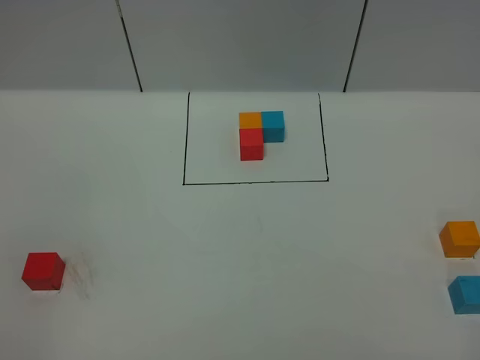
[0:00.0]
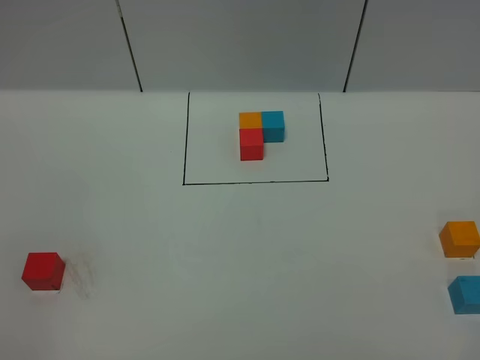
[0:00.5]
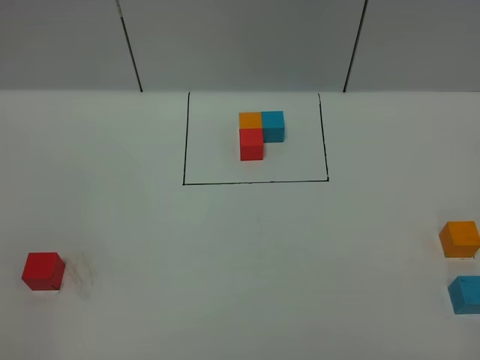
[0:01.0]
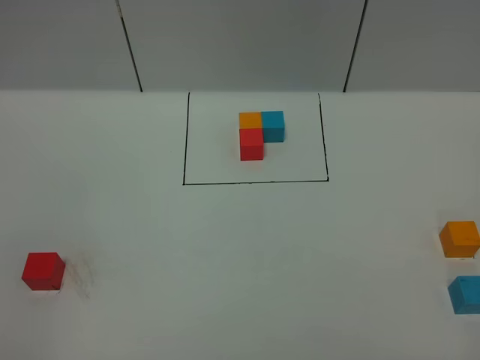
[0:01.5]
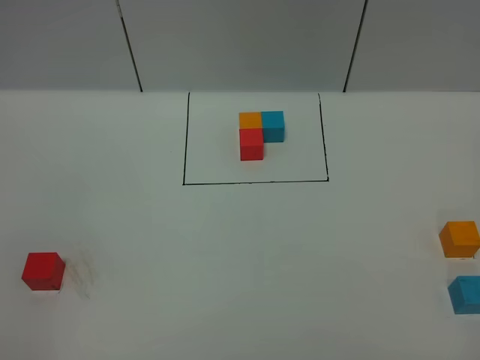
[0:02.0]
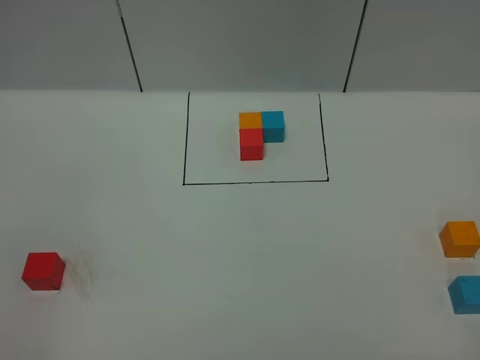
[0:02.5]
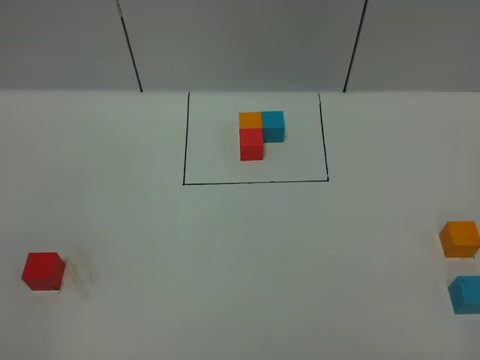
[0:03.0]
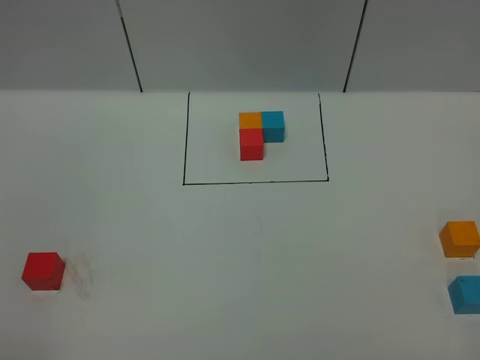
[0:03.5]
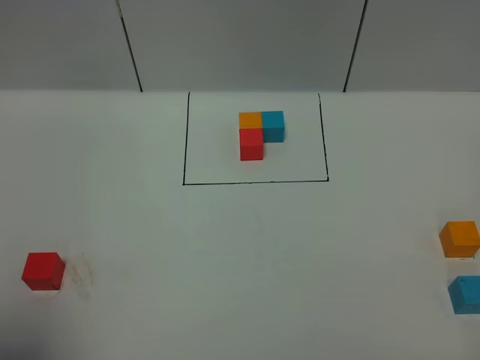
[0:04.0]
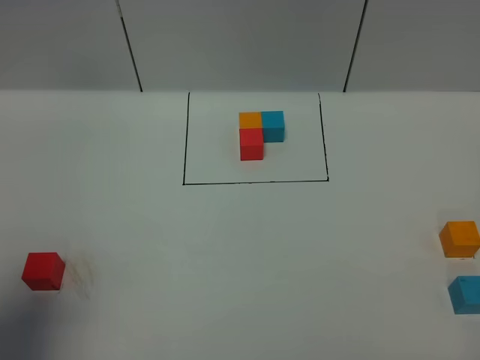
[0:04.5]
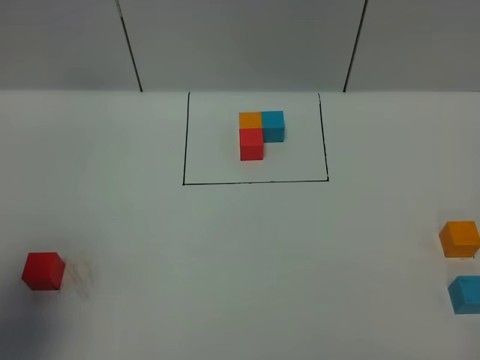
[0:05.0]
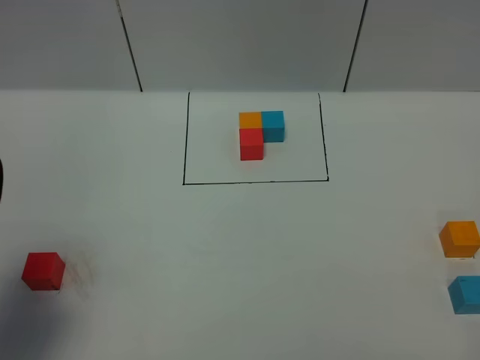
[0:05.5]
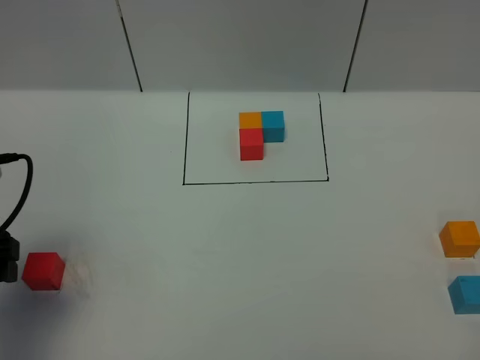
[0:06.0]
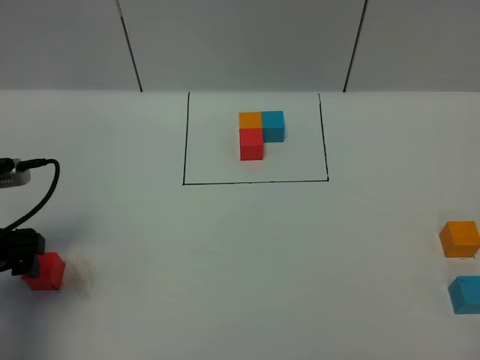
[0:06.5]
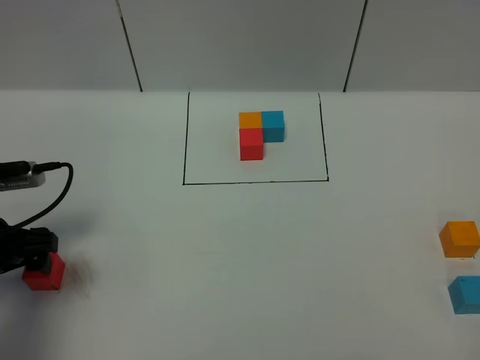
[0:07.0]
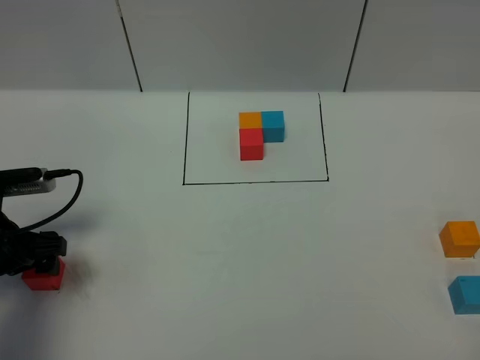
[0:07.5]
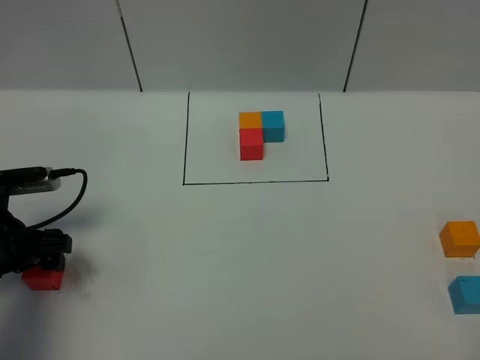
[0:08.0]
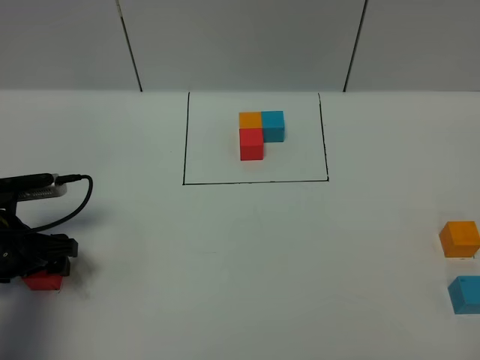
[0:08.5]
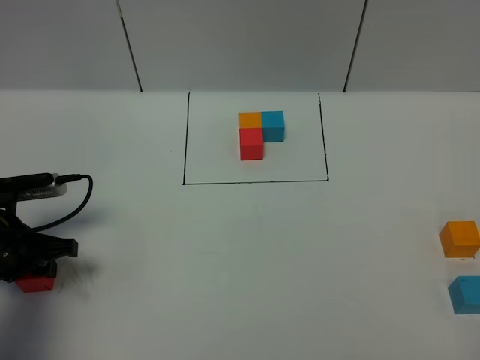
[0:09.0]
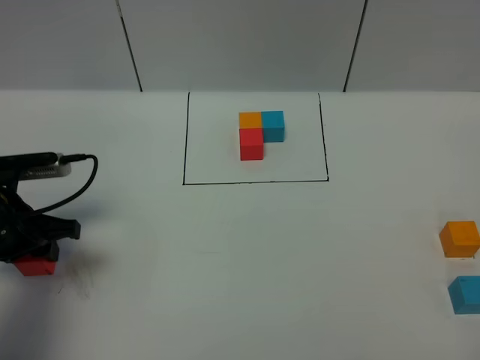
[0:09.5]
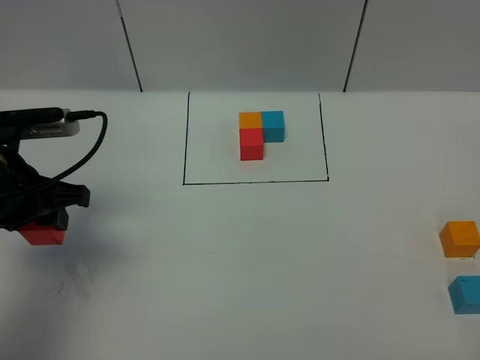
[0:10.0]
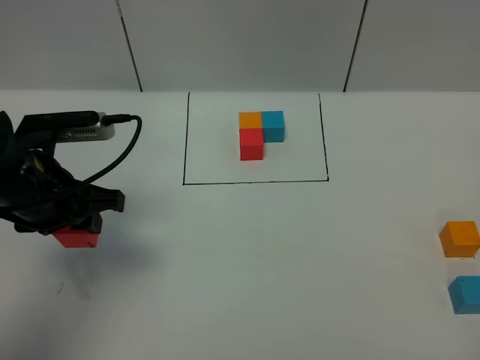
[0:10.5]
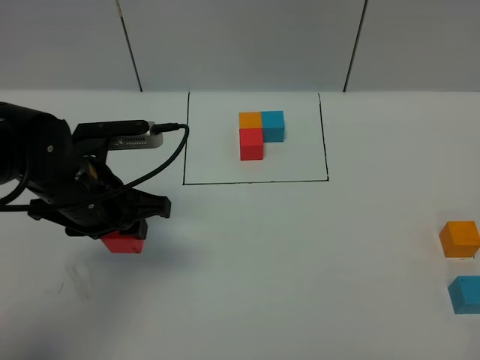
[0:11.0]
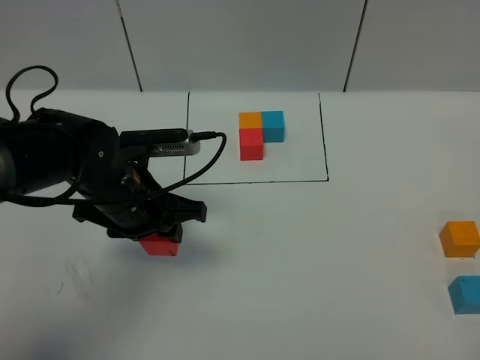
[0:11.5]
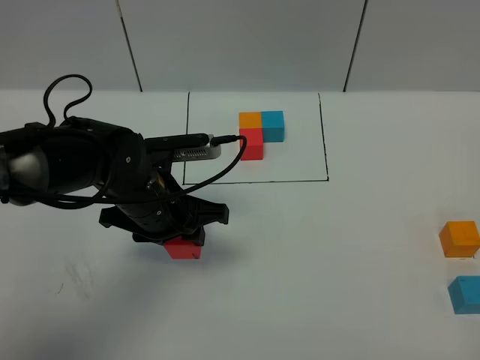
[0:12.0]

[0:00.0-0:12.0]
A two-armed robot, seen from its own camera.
Task of the whole recording: According to the building block template in front, assemble the scattered blocks together.
0.0 to 2.0 s: Neither gripper changes place.
2.0 to 4.0 s: The left gripper heads upward and forward, covering roughly 15 cm, and opens.
4.0 to 6.0 s: The left gripper is displaced downward and forward by roughly 20 cm.
6.0 to 8.0 s: The left gripper goes about 10 cm downward and forward.
8.0 to 10.0 s: The left gripper moves upward, about 10 cm, and closes.
10.0 to 12.0 s: The left gripper shifts some 15 cm to the right.

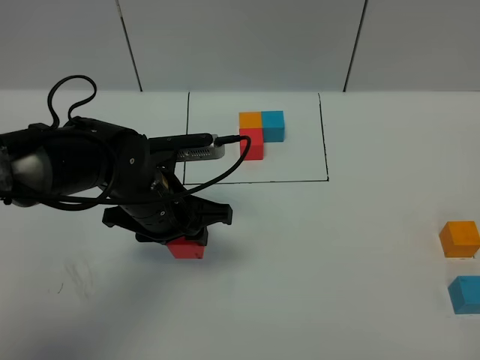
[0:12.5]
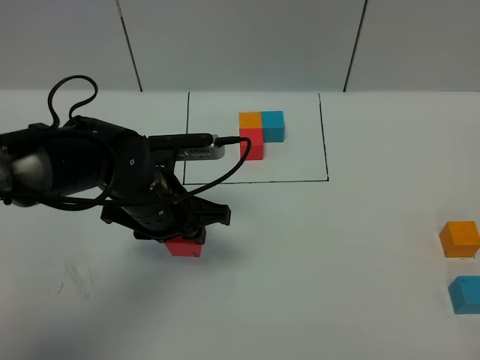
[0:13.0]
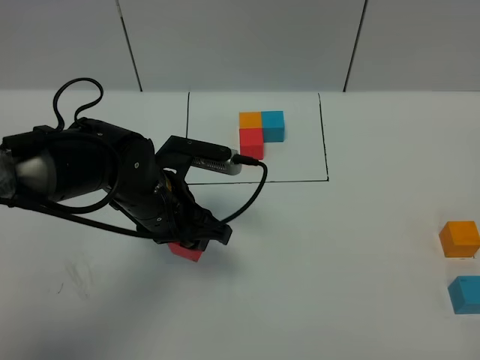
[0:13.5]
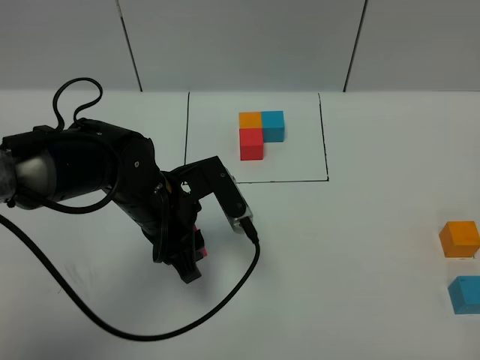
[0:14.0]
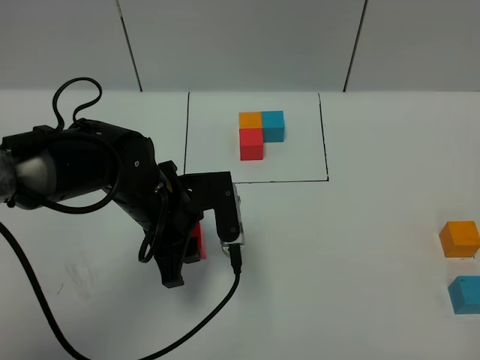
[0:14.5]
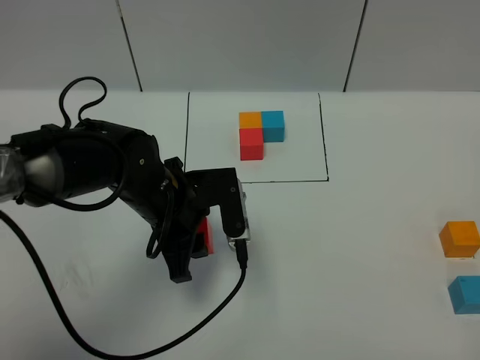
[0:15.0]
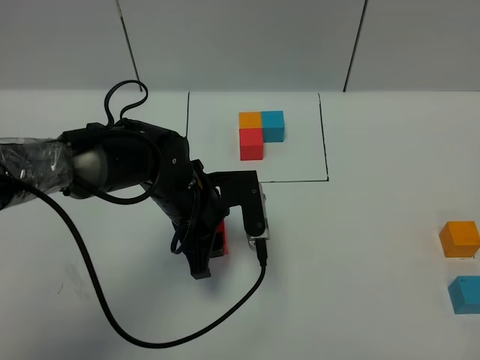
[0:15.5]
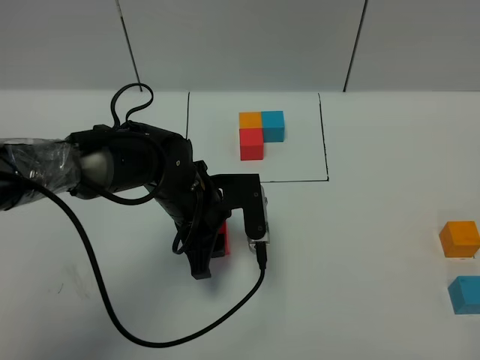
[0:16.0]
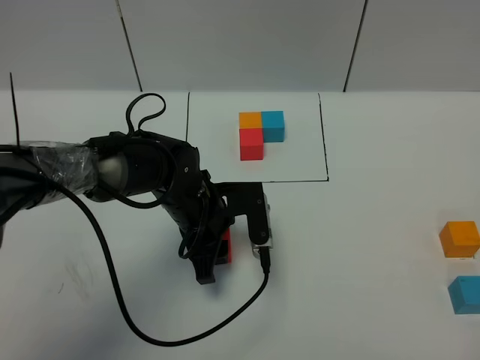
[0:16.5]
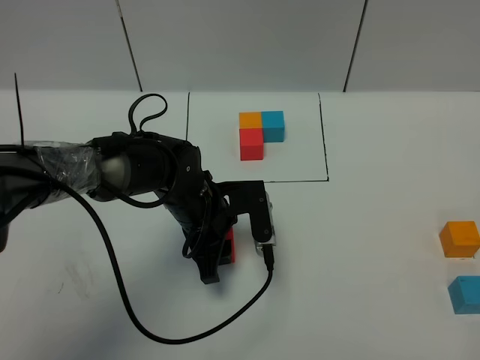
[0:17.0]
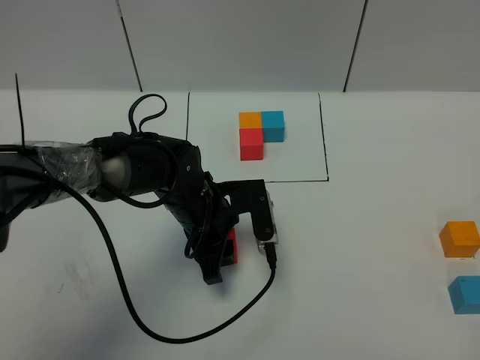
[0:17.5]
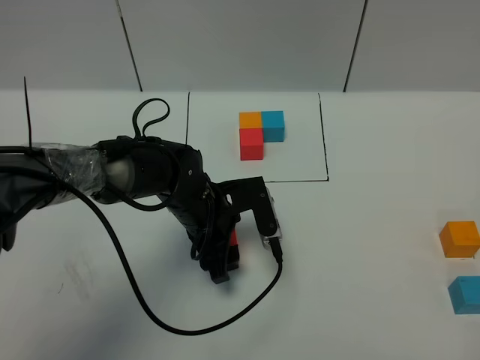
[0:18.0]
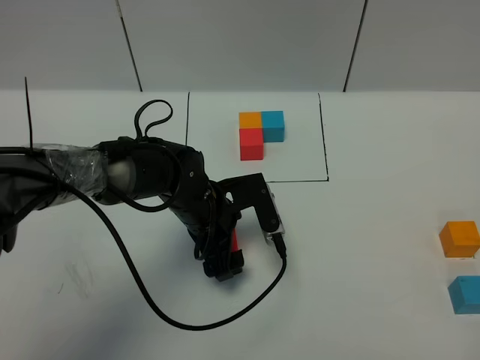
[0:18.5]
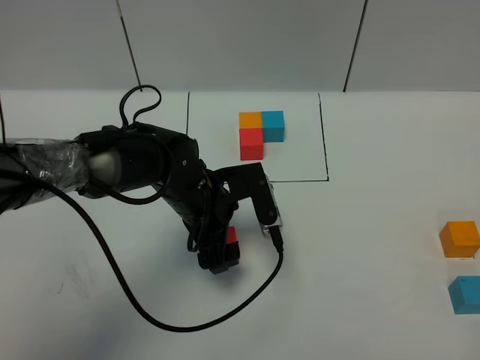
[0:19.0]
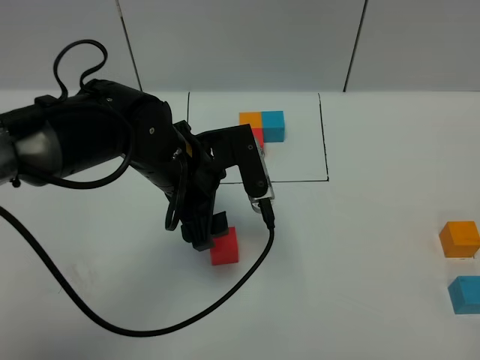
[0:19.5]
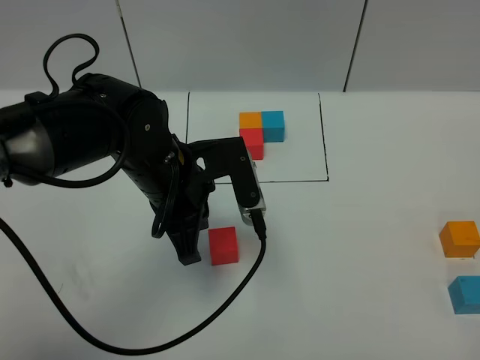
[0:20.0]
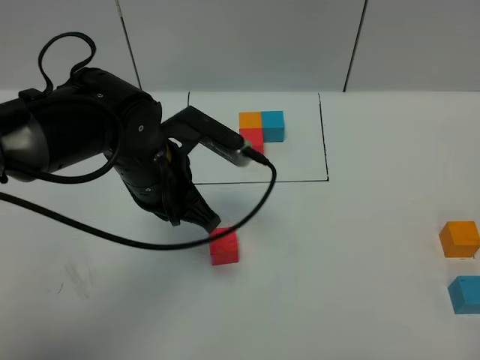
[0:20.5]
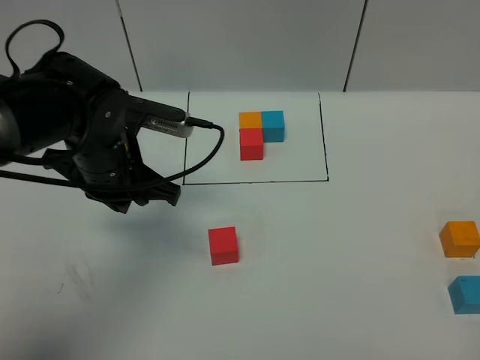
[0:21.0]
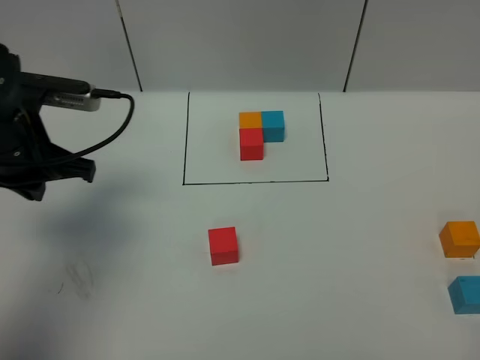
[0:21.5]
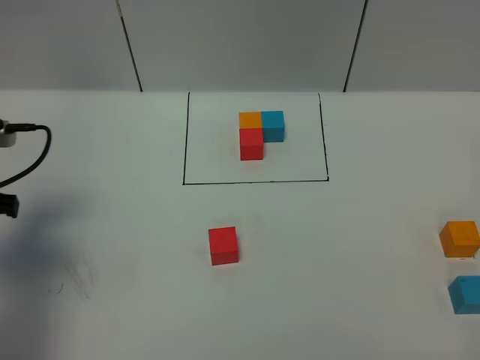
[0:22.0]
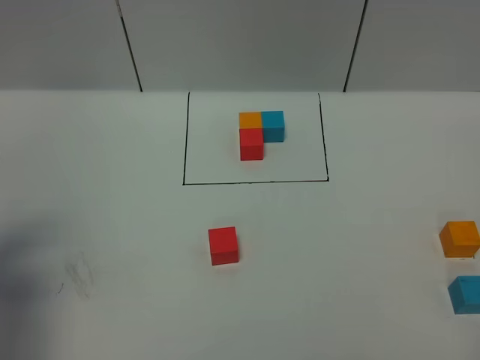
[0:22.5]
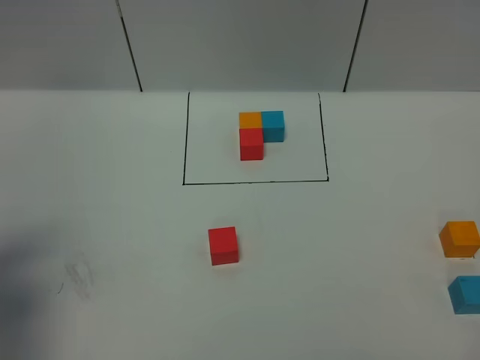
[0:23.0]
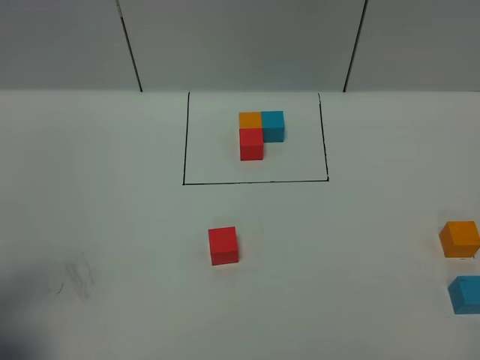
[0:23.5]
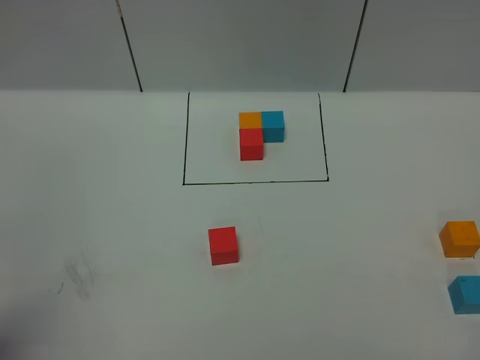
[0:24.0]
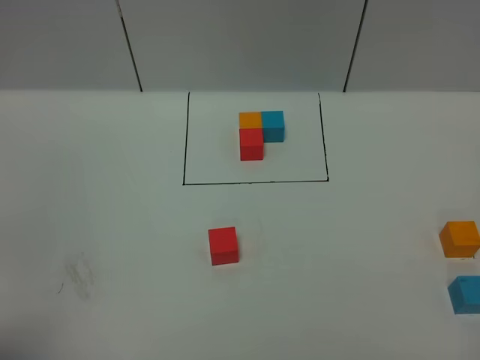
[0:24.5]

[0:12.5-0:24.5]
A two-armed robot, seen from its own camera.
Task of the whole recording: According to the building block template in front, assemble the scattered blocks together.
Step, 12.5 to 19.5 s: Put the red cube in the center of the table.
14.5 to 16.5 s: The left gripper heads downward, covering approximately 5 cm.
16.5 to 18.5 s: The left gripper opens its fingers.
18.5 to 20.5 s: The left gripper goes about 10 cm upward, and closes its fingers.
20.5 to 22.5 s: The left gripper heads to the left, covering about 25 cm.
22.5 to 24.5 s: The left gripper goes approximately 15 cm backward.

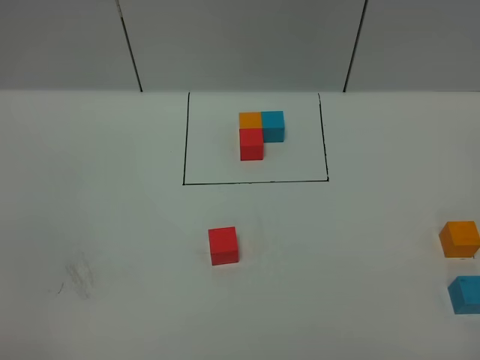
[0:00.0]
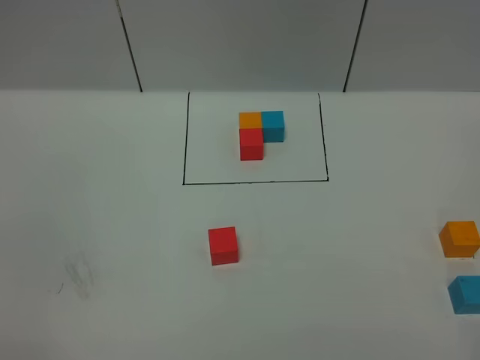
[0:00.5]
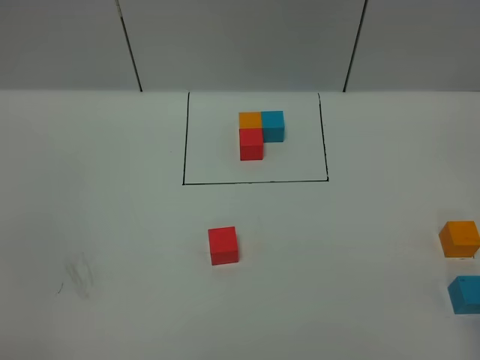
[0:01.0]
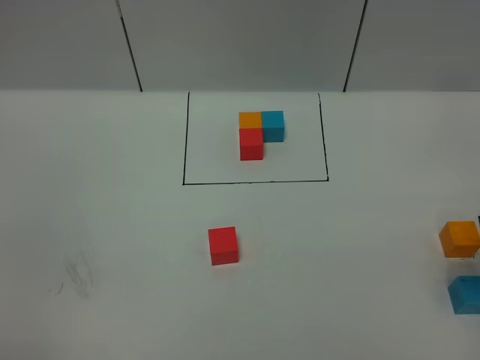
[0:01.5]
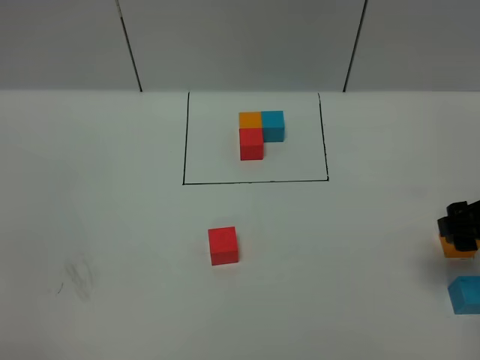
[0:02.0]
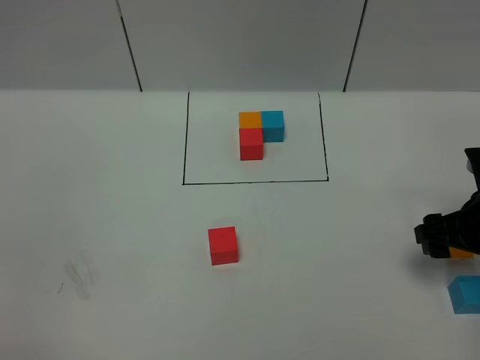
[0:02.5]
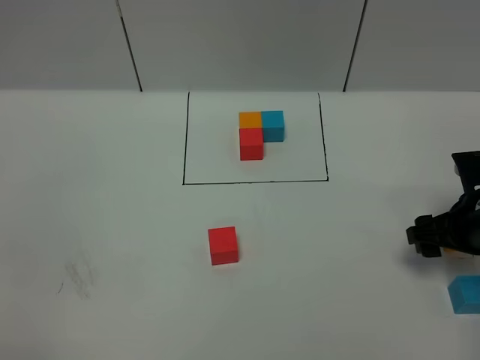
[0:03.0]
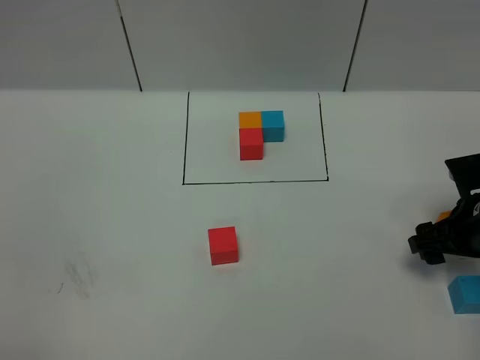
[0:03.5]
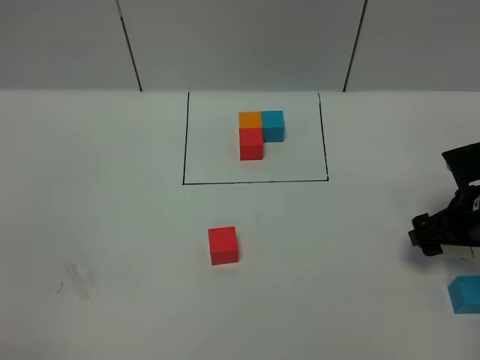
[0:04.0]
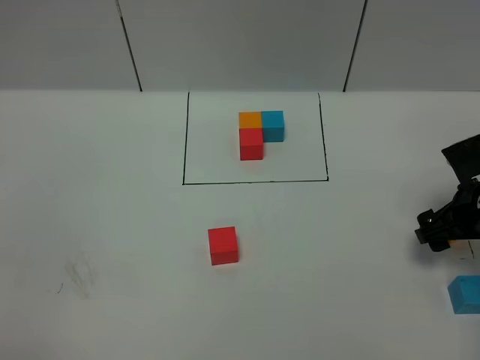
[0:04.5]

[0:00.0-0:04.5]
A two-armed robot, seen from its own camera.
Task of the whole recording: According to the building block template in front, assemble the scattered blocks together.
0.0 to 2.0 s: The right gripper heads forward, covering approximately 25 cm.
2.0 to 4.5 s: The right gripper moves downward and forward, approximately 10 cm.
